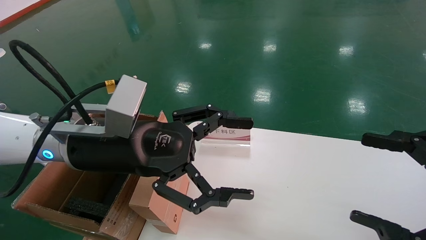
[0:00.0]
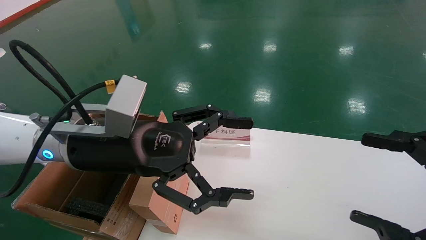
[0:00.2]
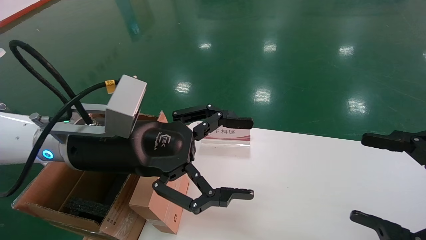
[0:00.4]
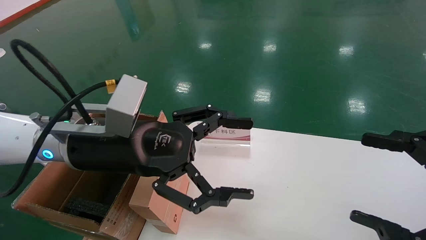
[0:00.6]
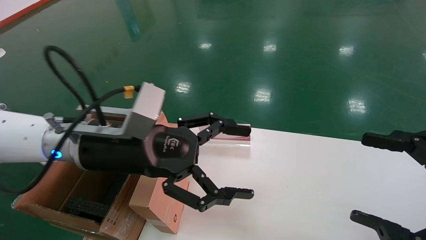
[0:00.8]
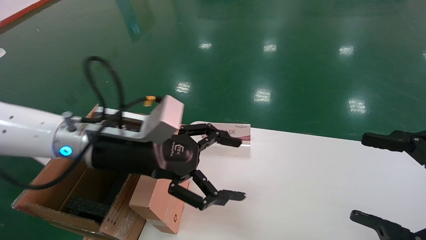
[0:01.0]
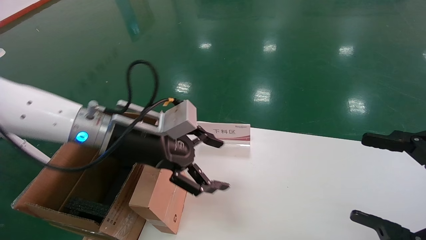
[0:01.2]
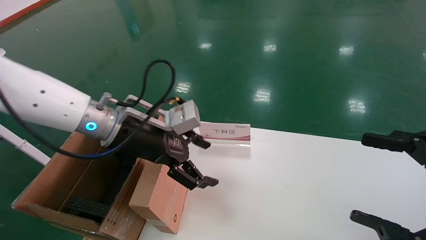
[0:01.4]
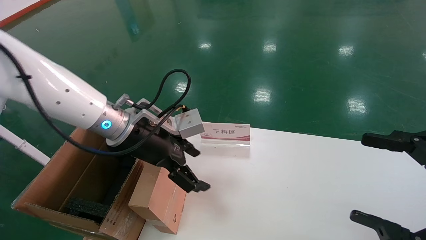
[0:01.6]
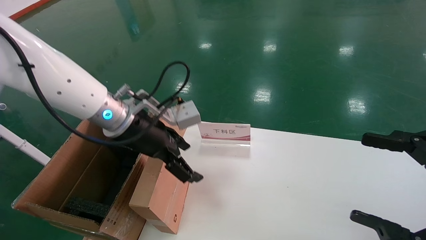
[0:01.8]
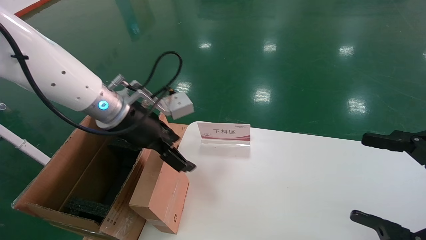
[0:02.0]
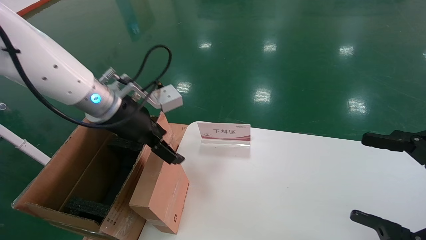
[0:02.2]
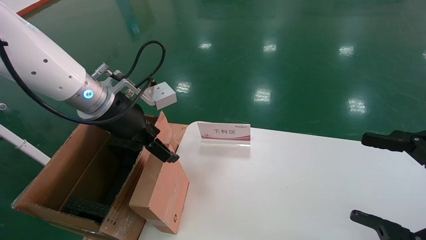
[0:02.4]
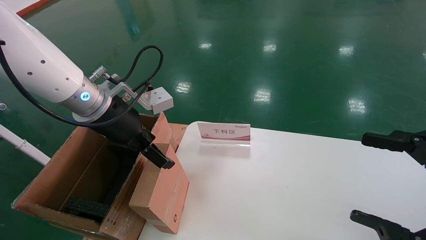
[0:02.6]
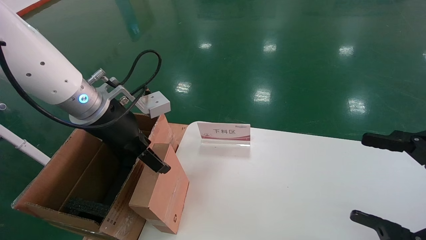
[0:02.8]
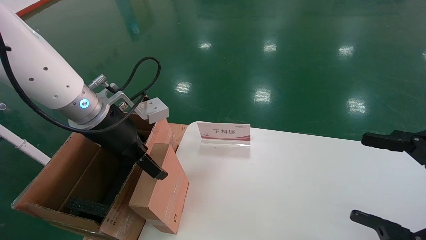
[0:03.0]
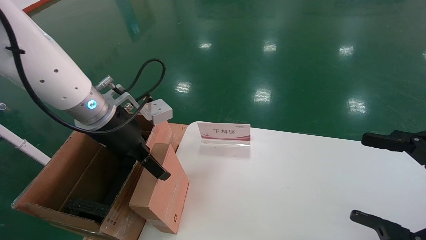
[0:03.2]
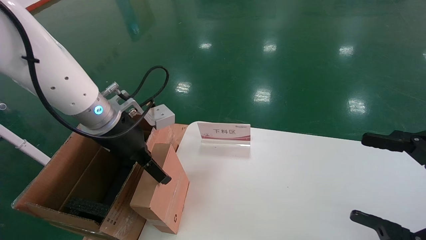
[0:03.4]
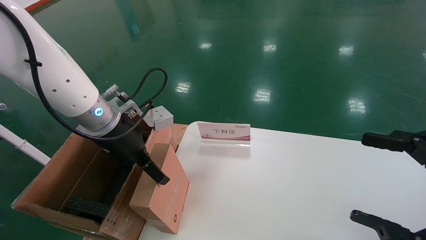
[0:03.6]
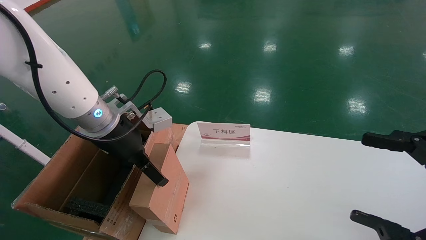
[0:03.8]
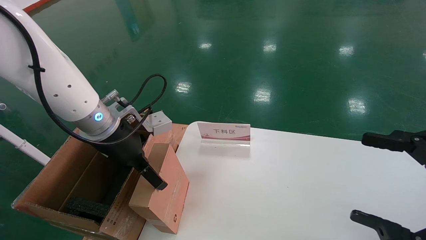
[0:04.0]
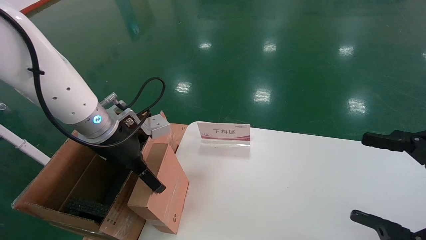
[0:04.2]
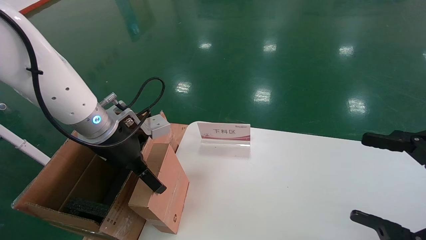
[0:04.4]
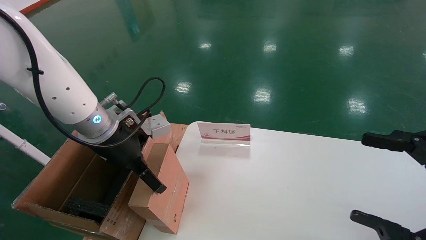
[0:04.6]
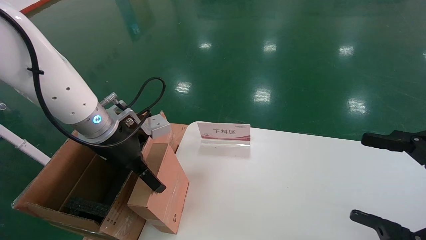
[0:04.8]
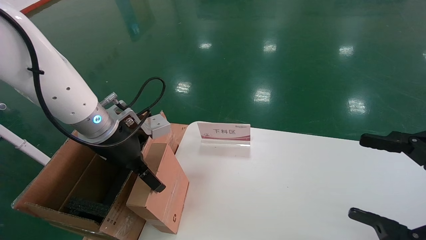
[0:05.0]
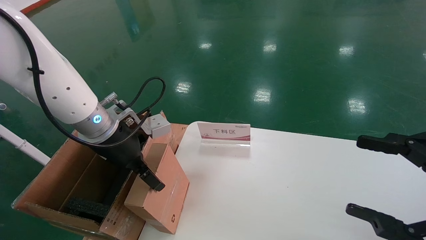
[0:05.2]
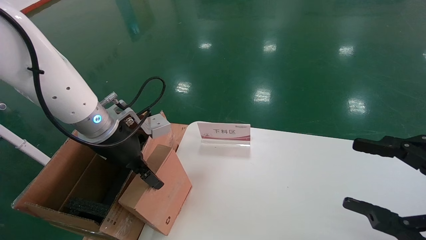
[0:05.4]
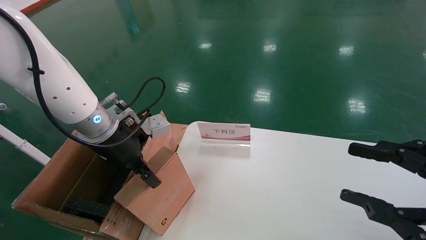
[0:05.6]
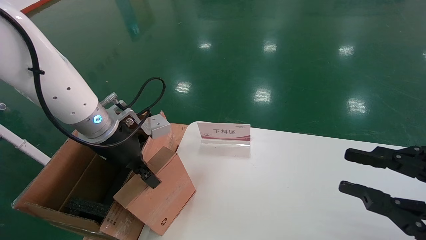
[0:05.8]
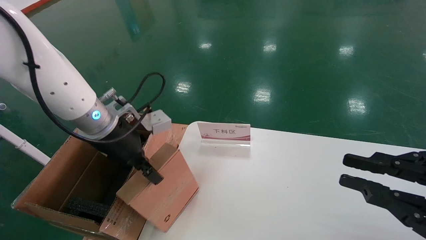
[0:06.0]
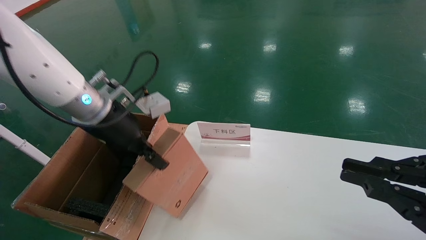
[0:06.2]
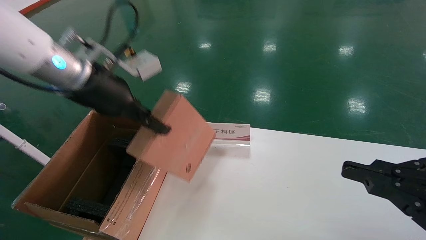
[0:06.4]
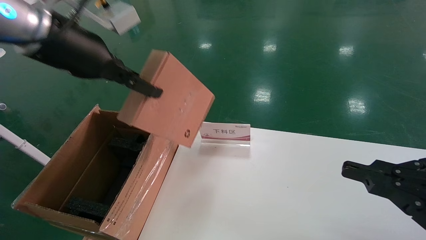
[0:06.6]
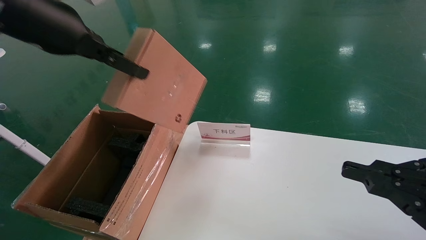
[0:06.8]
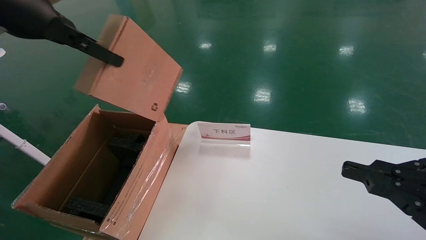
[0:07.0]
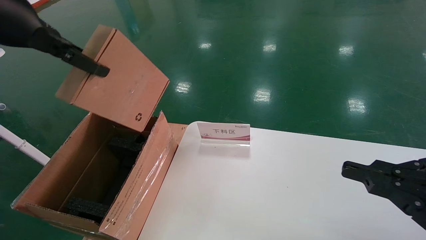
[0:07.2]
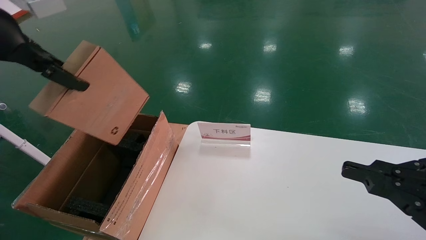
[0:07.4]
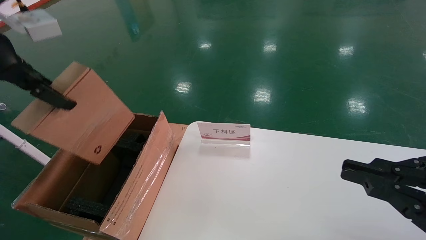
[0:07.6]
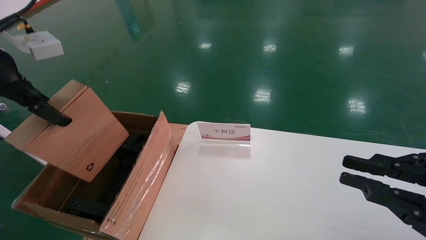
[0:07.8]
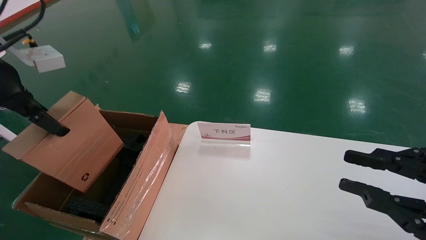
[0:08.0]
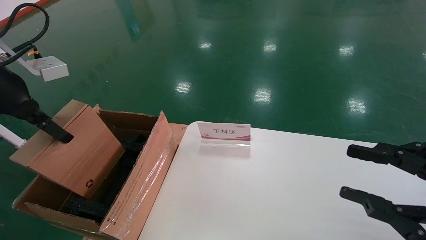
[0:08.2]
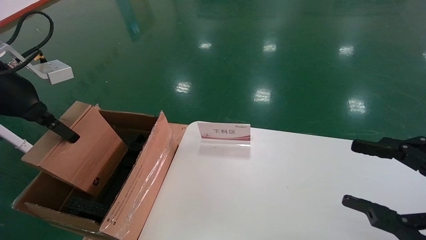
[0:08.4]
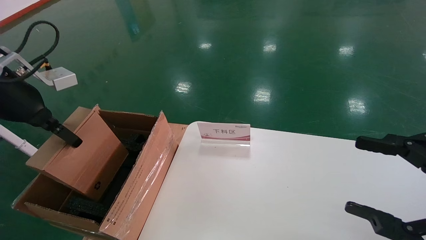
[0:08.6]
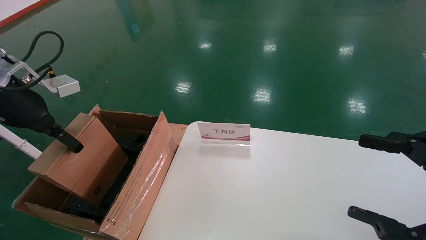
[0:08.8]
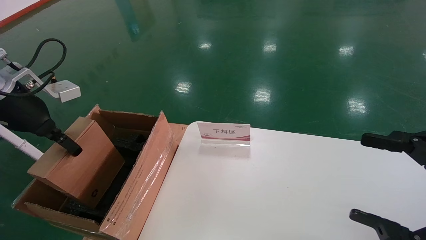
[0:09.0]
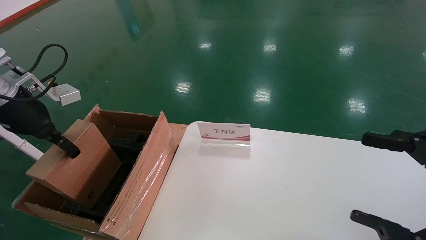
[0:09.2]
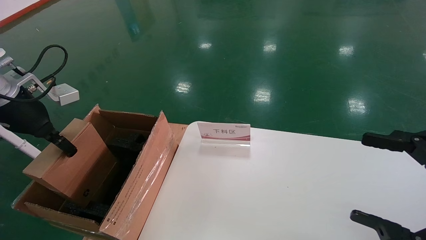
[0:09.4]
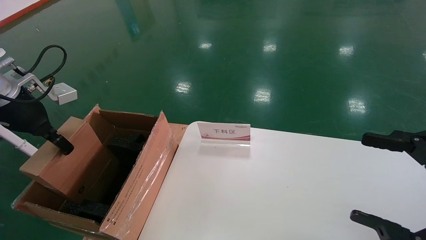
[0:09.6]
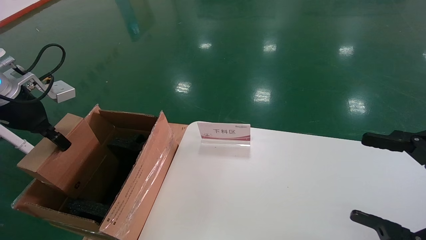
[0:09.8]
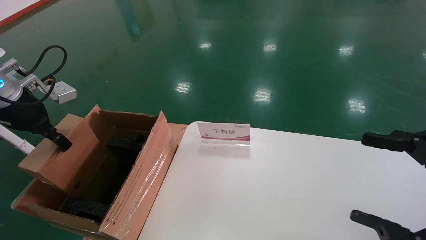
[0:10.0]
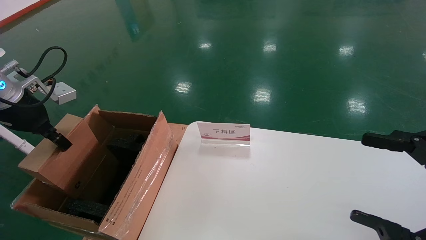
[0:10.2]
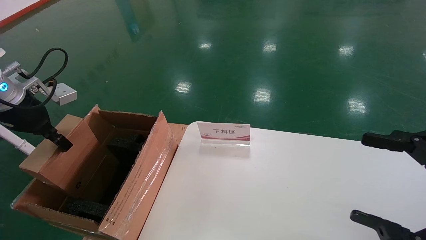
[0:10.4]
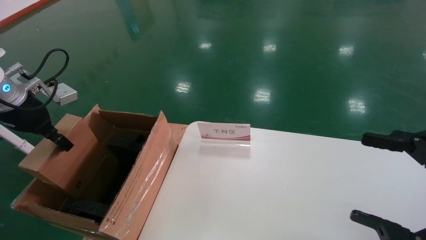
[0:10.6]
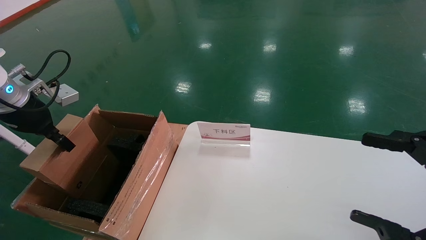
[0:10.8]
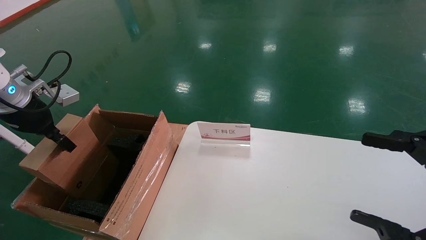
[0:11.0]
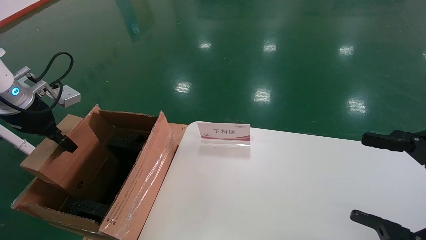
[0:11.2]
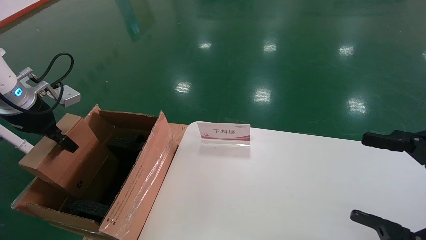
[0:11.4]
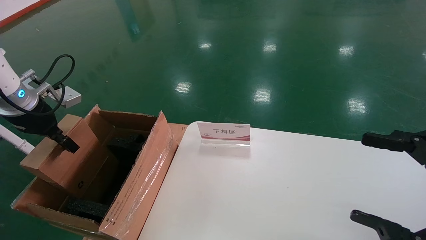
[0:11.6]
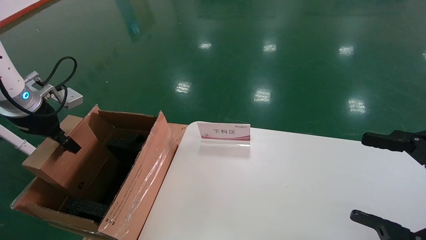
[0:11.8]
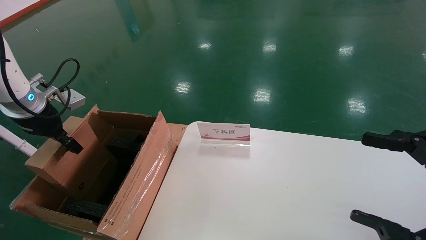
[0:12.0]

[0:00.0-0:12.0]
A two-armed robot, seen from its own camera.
Task of the whole recording: pick up the small cardboard box and load it into the large cardboard box.
Step, 0:01.0 to 0:05.8: Pick up the mouse and power cord box.
0:00.0 to 0:01.6: The left gripper travels forward by approximately 10 cm.
0:03.0 to 0:04.4: There are only small adjustments of the grippers.
0:04.4 to 0:06.0: The right gripper closes up. Meanwhile the left gripper closes its fingers.
0:06.0 to 0:07.6: The left gripper shifts roughly 20 cm upward, to the left and backward.
0:07.6 to 0:09.0: The left gripper shifts roughly 15 cm downward, forward and to the left. The right gripper opens its fingers.
0:09.0 to 0:10.4: The grippers move only a little.
0:10.4 to 0:12.0: The grippers move only a little.

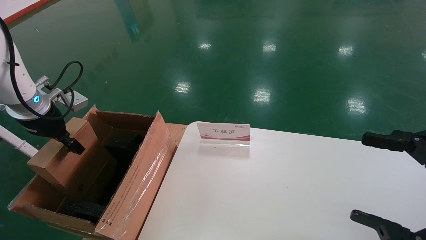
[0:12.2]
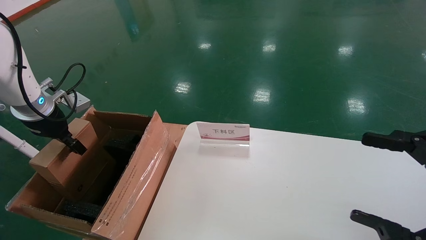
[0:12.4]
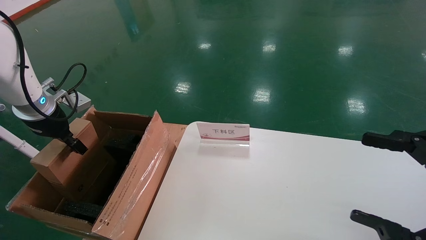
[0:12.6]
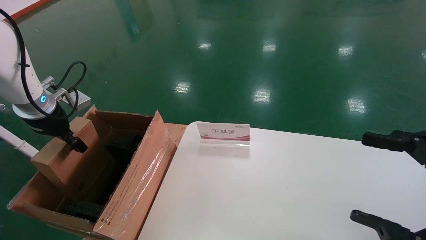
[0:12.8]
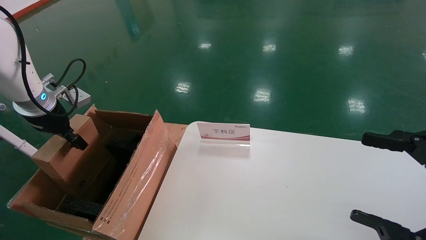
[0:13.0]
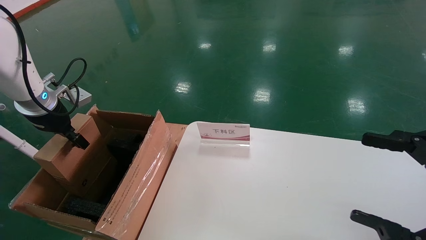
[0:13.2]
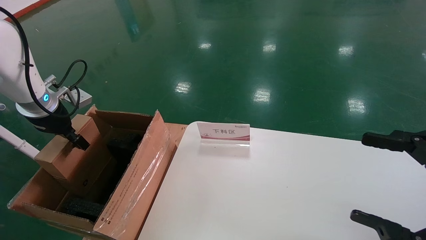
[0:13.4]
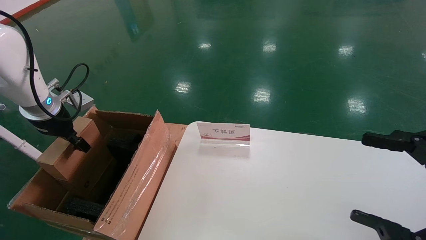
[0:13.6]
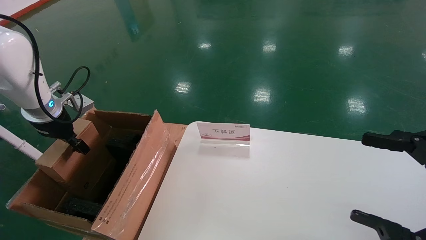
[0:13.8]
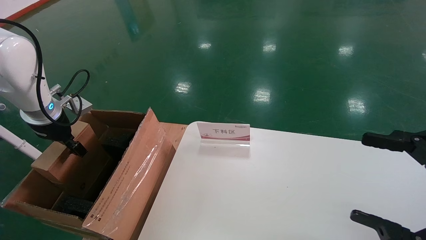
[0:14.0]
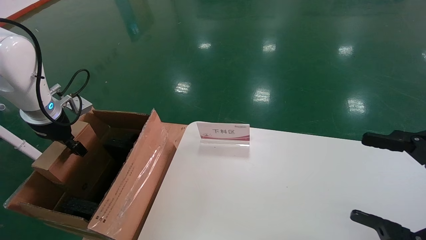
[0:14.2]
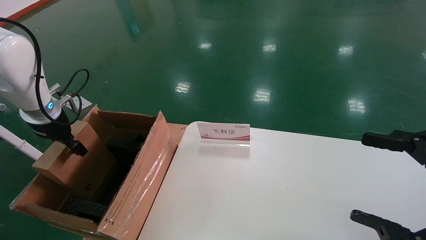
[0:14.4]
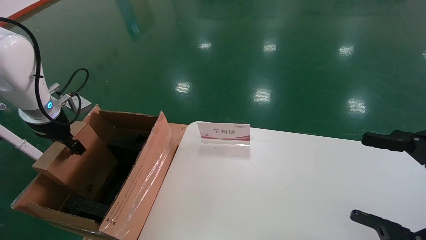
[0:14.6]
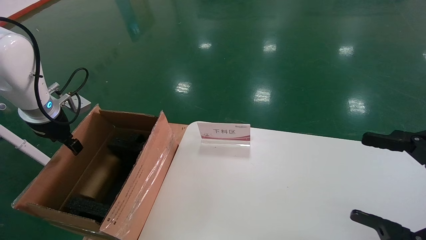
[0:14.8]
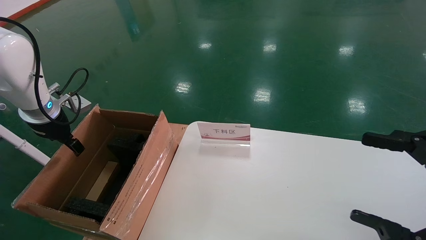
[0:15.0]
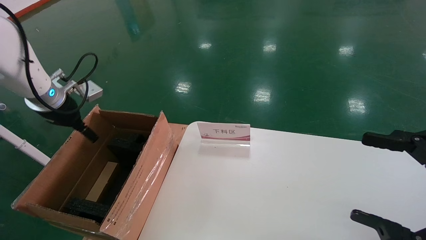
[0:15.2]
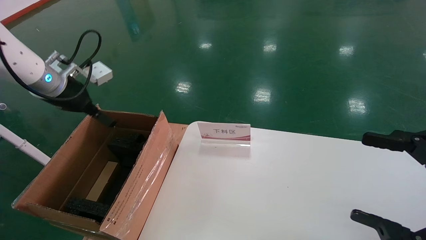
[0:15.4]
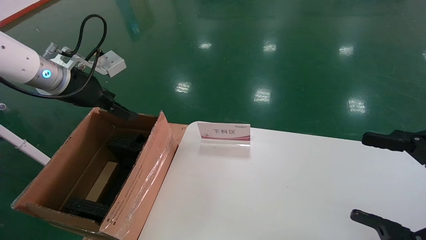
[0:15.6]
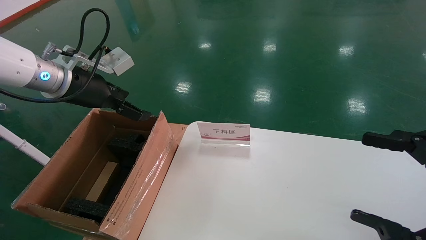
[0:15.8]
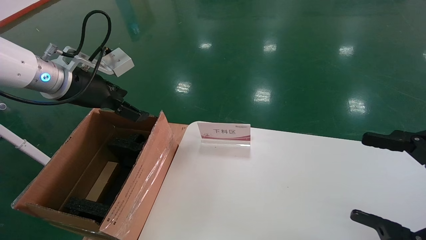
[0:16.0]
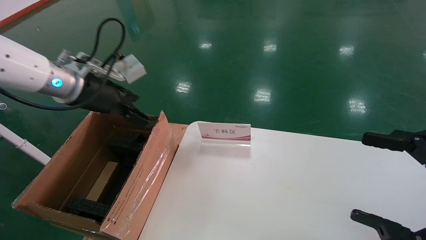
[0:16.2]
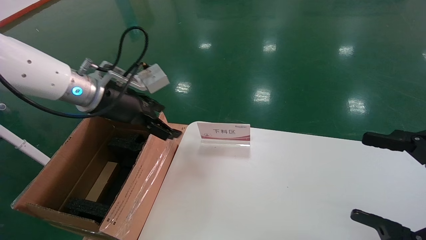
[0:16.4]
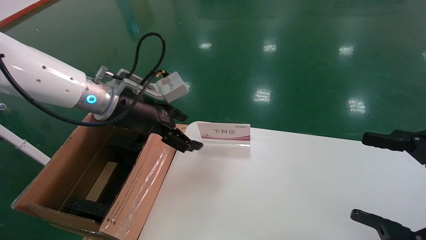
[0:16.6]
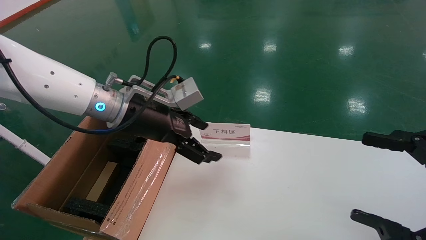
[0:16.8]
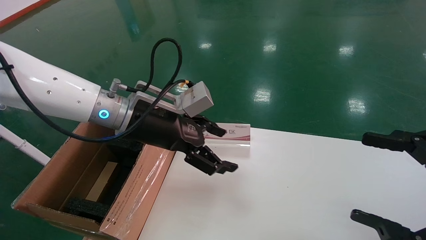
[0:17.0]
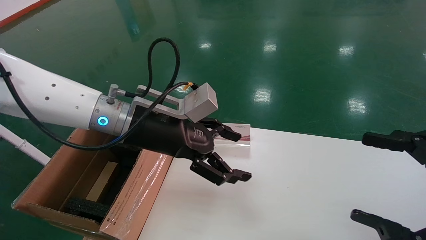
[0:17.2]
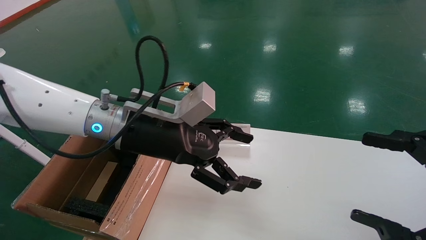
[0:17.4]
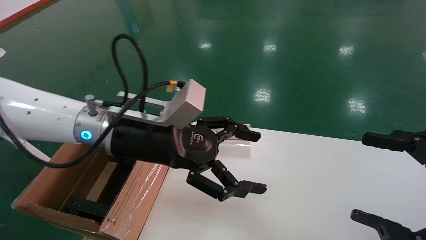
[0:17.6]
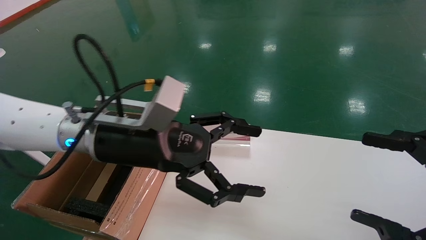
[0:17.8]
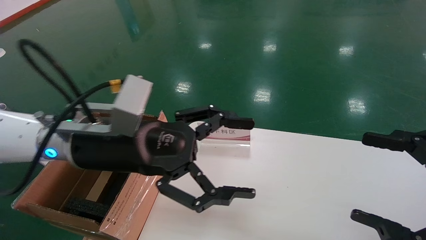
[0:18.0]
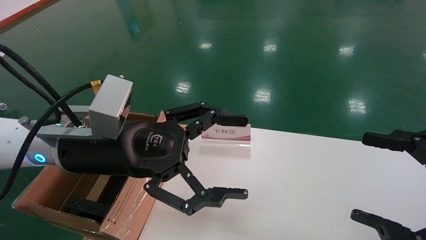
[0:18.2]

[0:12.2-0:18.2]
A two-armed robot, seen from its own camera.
Task of the whole recording: pick up the small cardboard box and load it into the large cardboard box.
Step, 0:12.2 to 0:14.8: Place the mouse and power cord box into the case.
0:12.2 to 0:13.8: The grippers stay close to where they were, moving slightly.
0:13.8 to 0:15.2: The left gripper opens up.
0:15.2 to 0:16.6: The left gripper moves to the right, roughly 20 cm.
0:16.6 to 0:18.2: The left gripper is displaced backward by some 10 cm.
